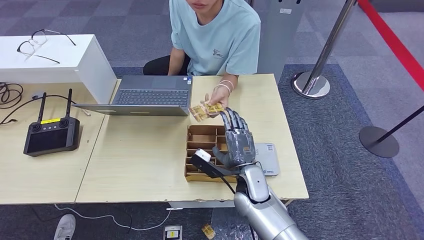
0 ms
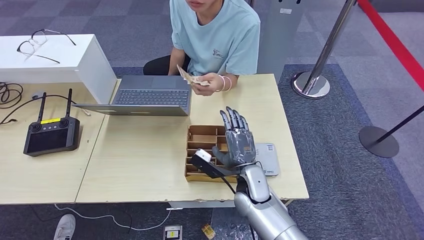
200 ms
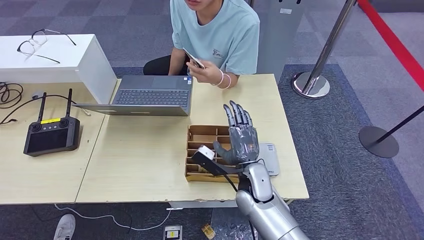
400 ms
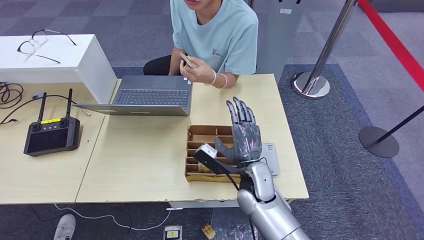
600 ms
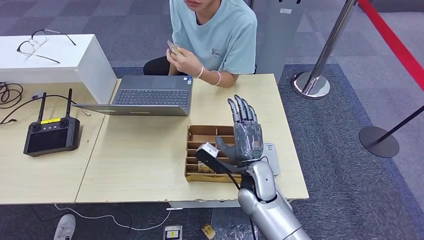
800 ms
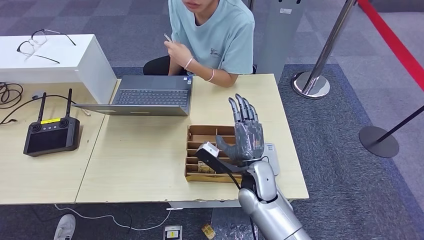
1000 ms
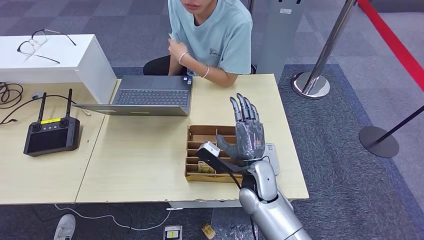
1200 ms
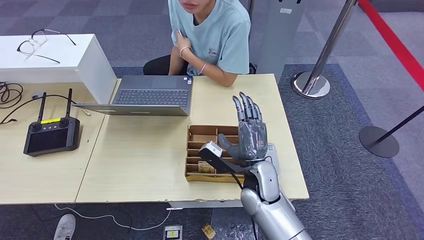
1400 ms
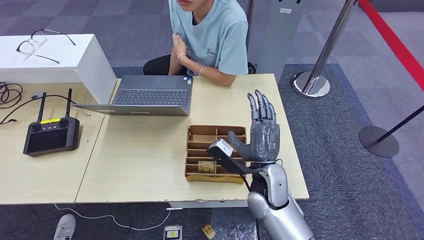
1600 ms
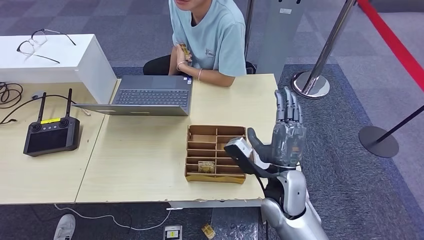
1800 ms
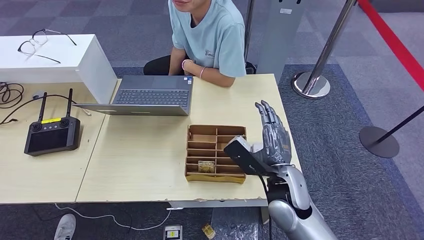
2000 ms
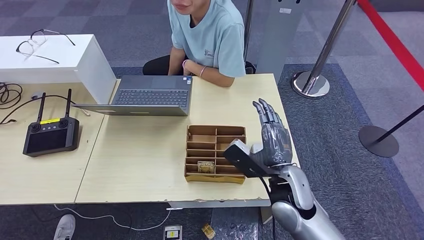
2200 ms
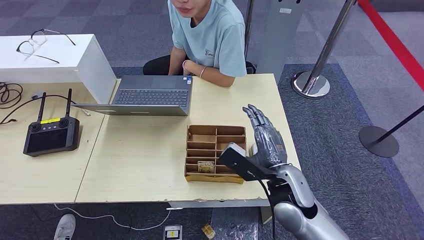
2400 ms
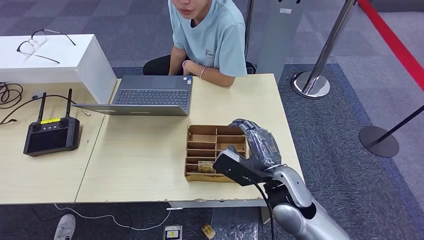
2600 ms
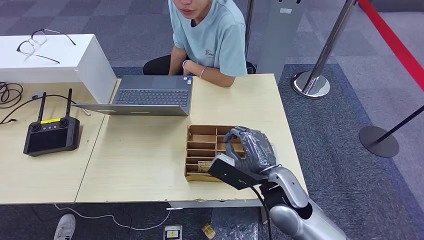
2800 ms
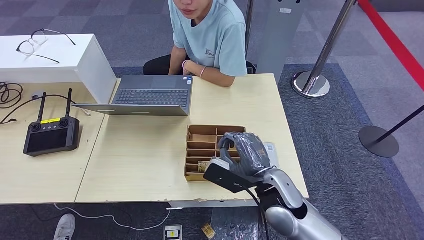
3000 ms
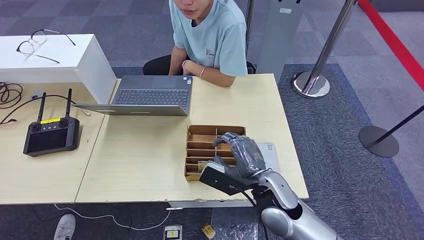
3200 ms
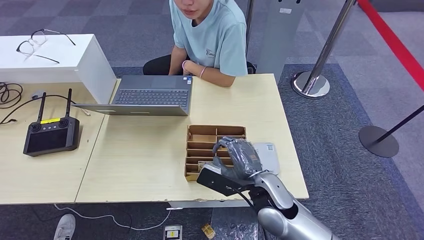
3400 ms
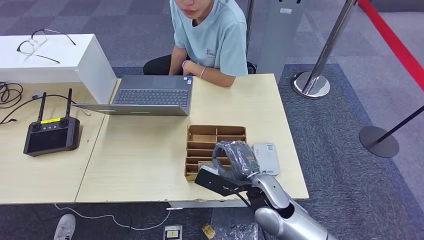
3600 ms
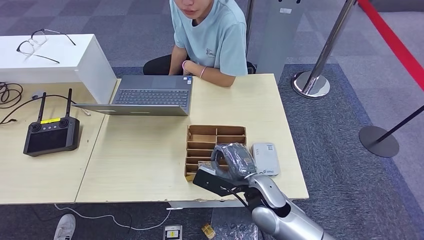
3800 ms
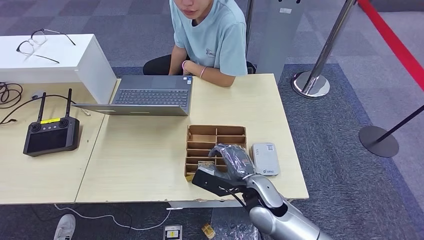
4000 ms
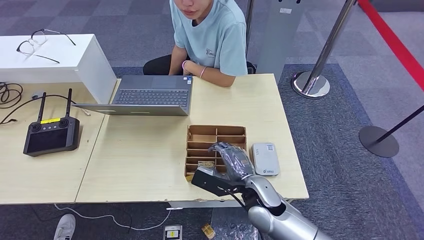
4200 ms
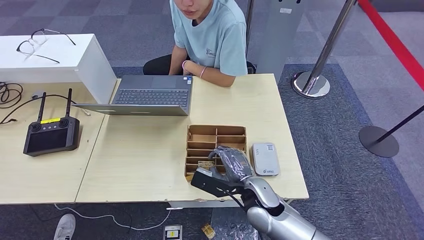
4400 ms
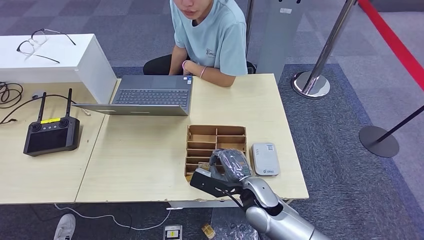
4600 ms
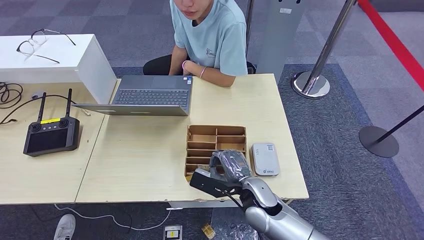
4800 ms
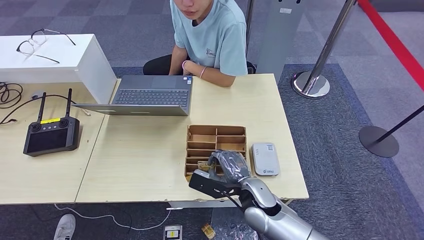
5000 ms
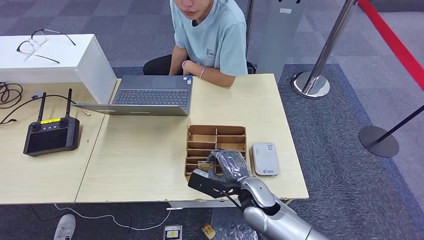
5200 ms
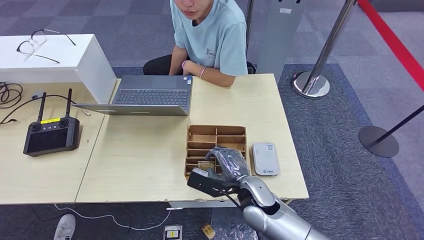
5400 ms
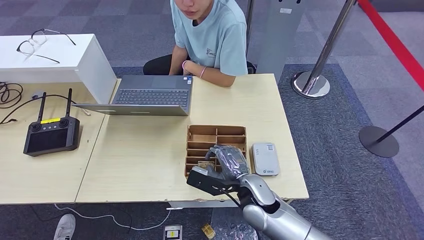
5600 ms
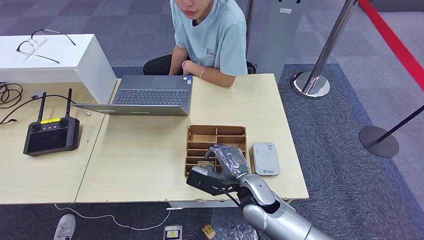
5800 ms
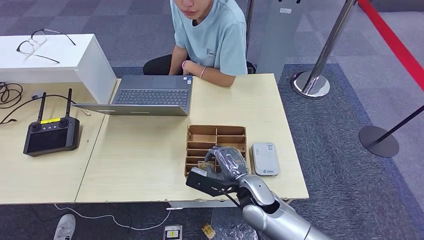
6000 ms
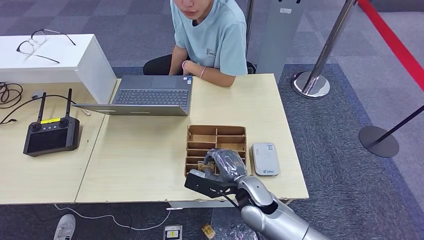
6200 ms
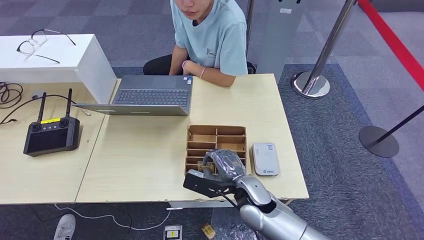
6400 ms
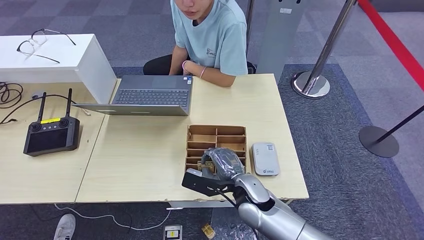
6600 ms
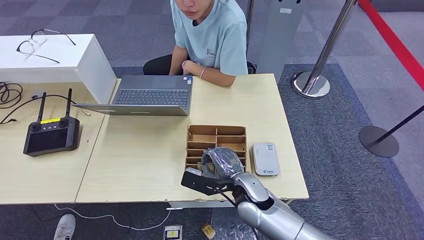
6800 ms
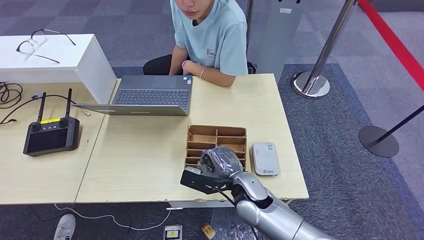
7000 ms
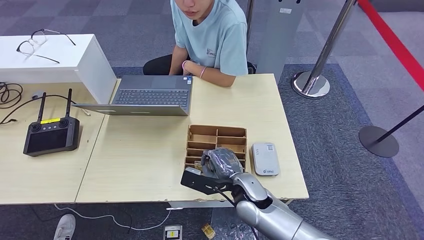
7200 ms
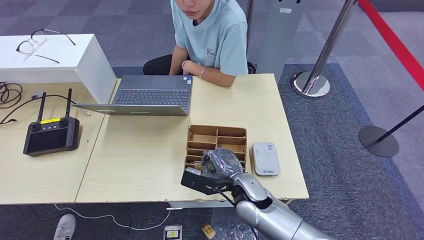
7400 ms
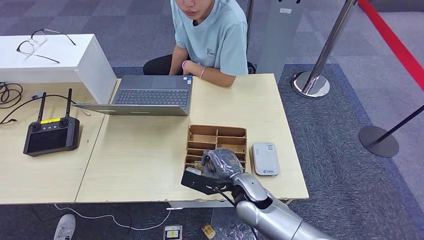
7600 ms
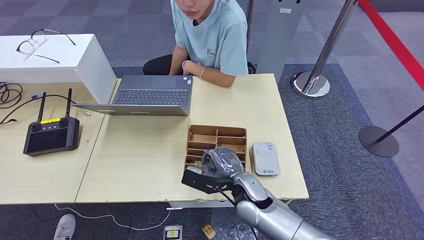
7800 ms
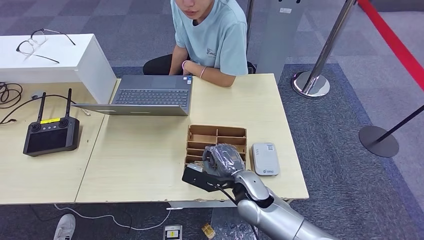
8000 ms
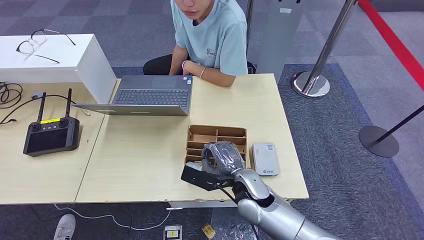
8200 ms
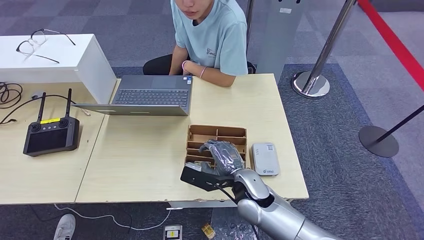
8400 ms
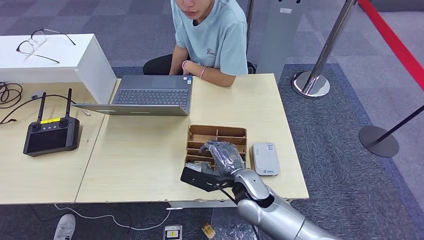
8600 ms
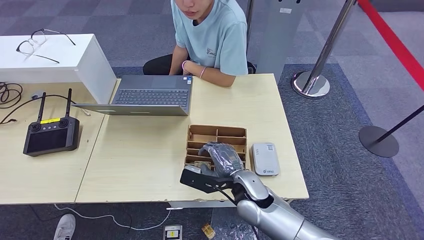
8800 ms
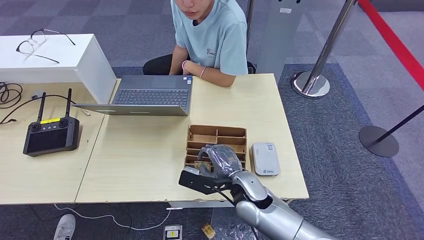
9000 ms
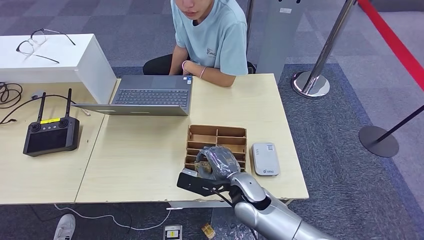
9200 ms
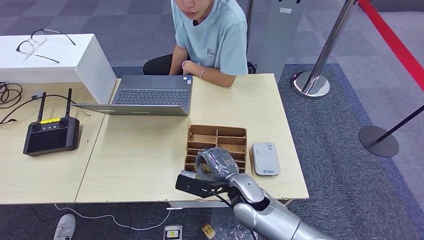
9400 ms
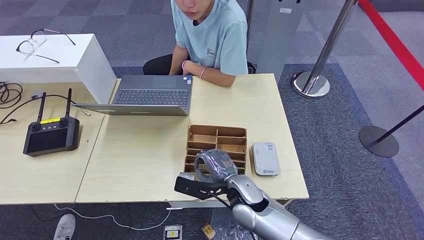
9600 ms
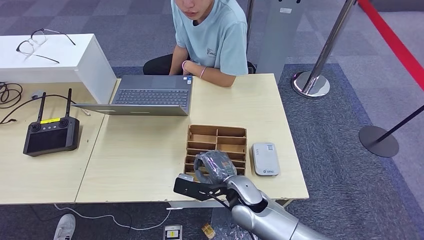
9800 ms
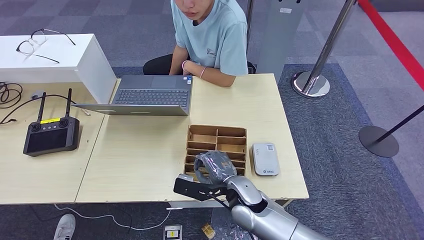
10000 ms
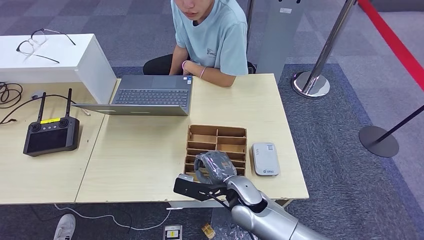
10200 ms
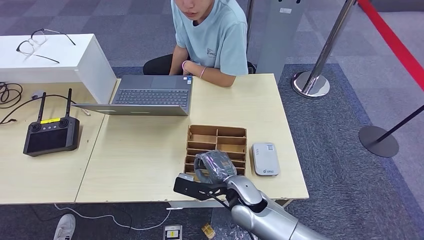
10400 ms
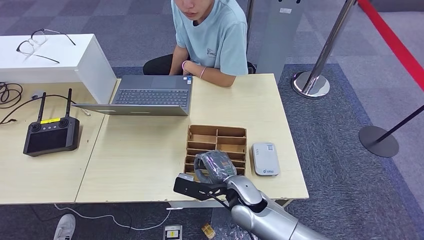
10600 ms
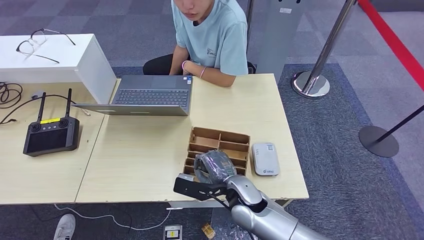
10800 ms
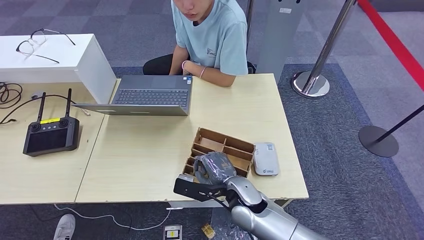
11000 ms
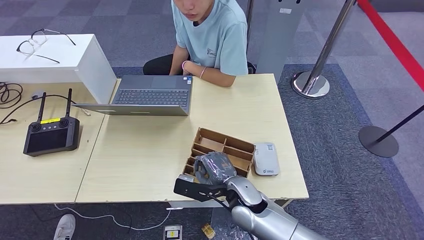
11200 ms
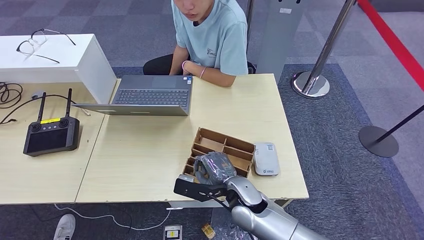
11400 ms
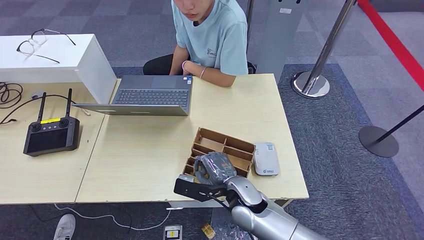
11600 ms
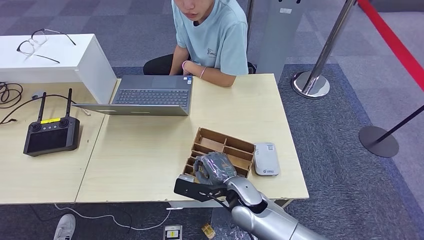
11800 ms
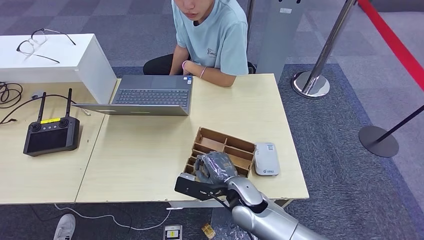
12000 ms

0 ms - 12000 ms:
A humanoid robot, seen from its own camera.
0 ms - 1600 ms: The right hand goes some 5 cm upward.
3000 ms - 4400 ms: The right hand is displaced downward by roughly 5 cm.
4400 ms - 6000 ms: Both hands stay put.
6000 ms - 10400 ms: There are only small adjustments of the hands.
10400 ms - 12000 ms: Neither hand changes place.

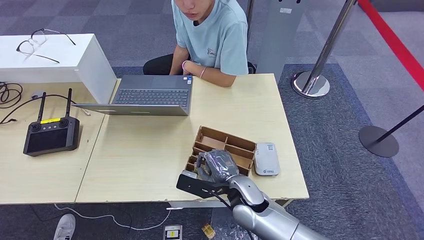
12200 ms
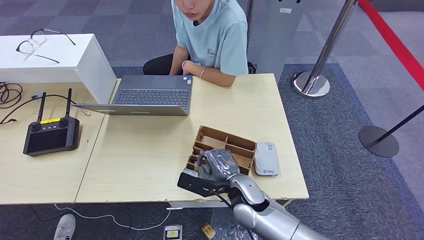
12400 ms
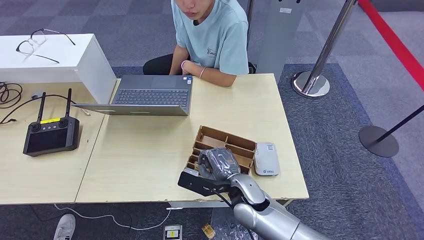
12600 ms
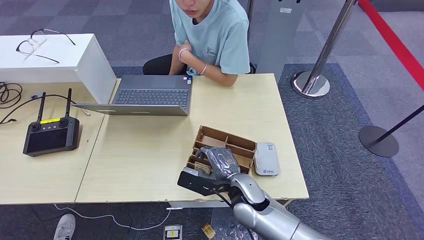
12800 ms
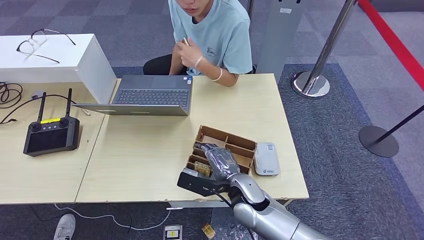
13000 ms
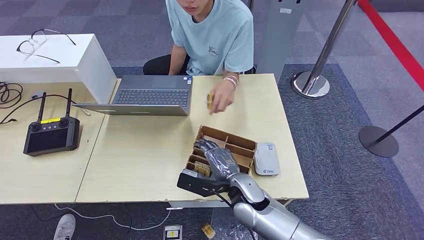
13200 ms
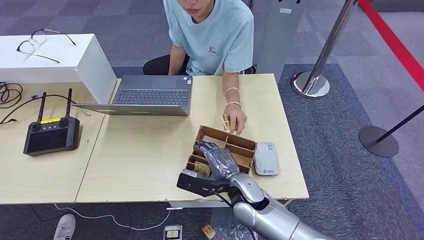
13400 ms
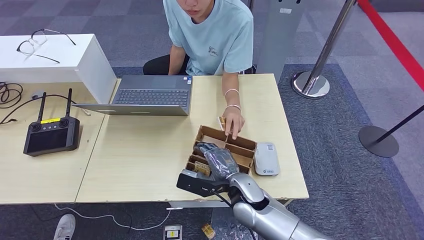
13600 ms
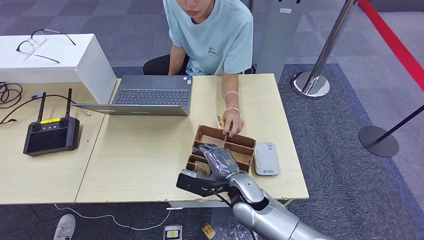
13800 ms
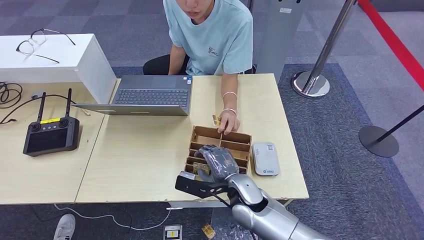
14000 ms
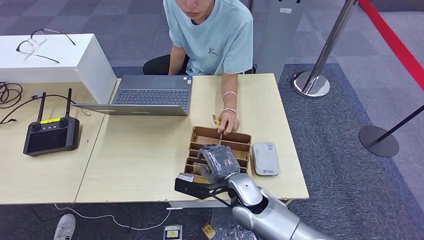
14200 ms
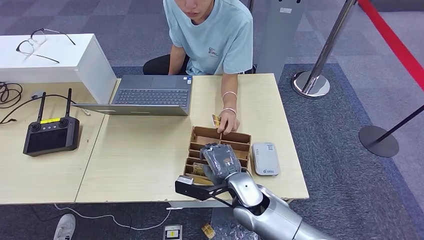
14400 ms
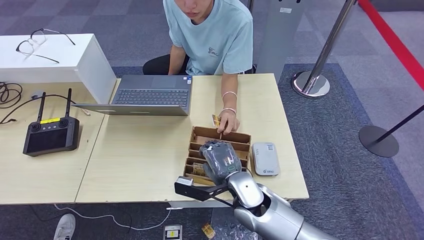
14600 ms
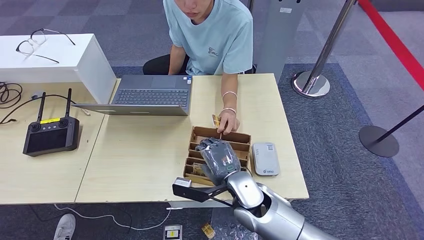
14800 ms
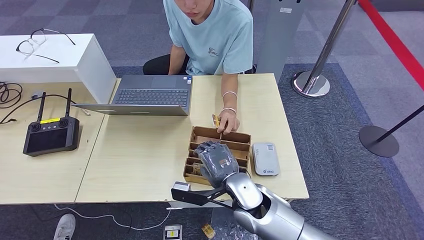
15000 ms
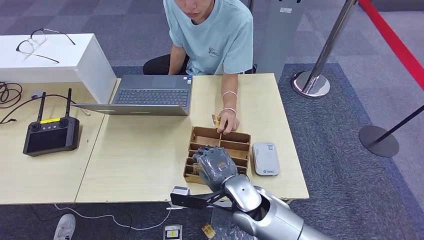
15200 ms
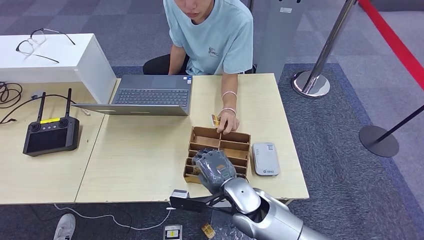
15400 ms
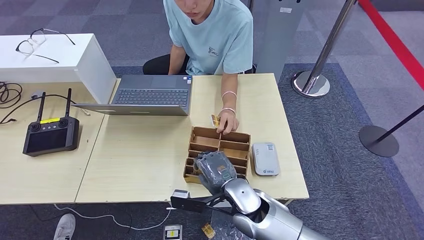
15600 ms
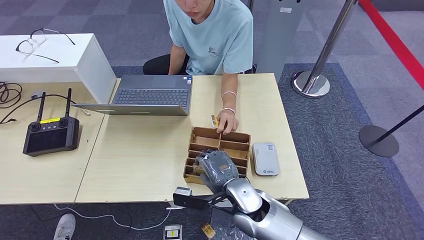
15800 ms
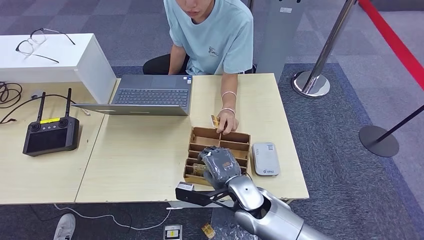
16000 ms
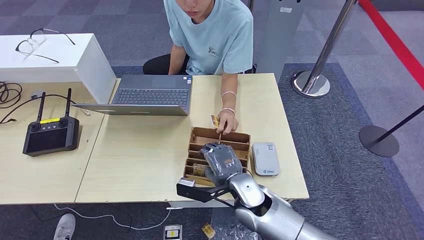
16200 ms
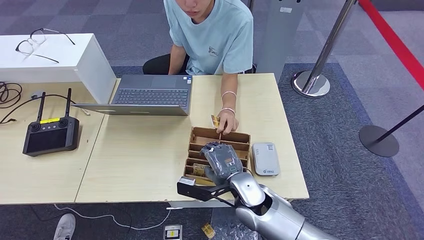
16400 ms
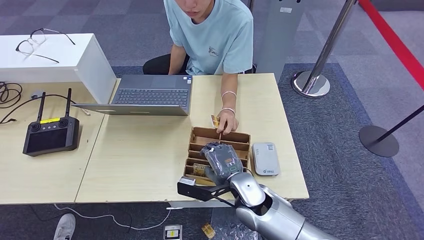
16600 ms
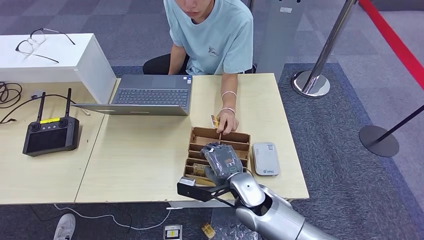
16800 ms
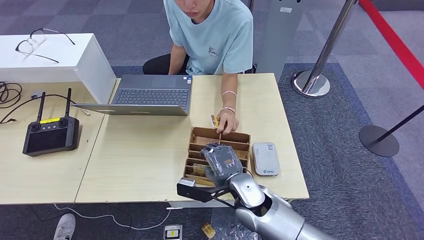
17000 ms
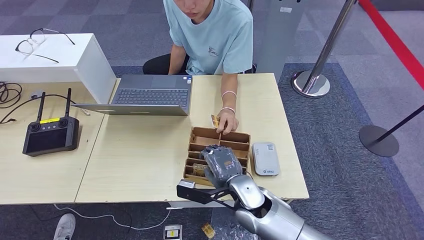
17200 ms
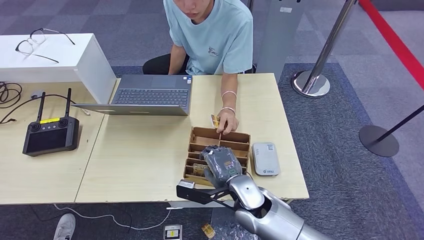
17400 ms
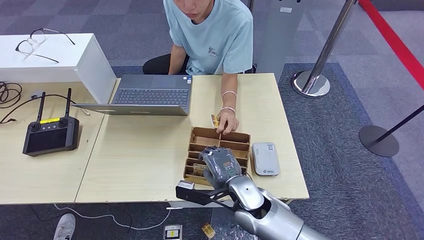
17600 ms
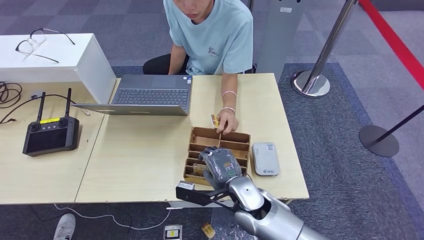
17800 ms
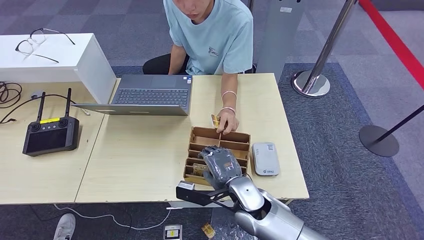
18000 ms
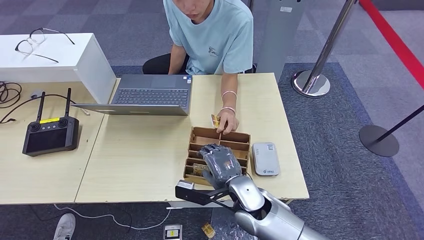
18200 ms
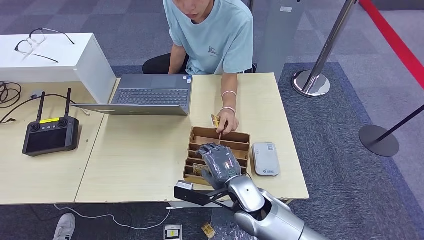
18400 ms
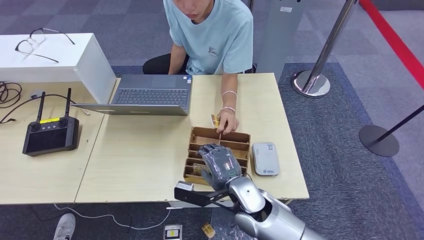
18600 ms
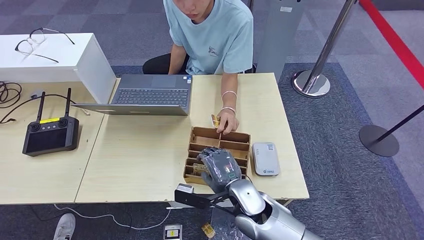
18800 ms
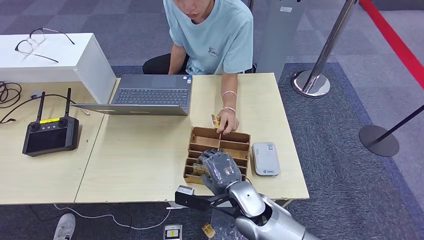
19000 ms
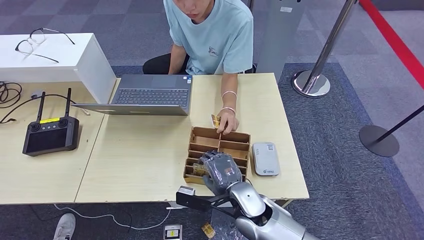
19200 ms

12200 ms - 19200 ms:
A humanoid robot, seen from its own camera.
12200 ms - 13600 ms: Neither hand changes place.
15000 ms - 16400 ms: The hands stay close to where they were, moving slightly.
16400 ms - 17800 ms: Neither hand changes place.
17800 ms - 19200 ms: Neither hand changes place.
